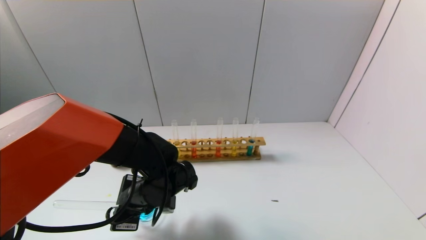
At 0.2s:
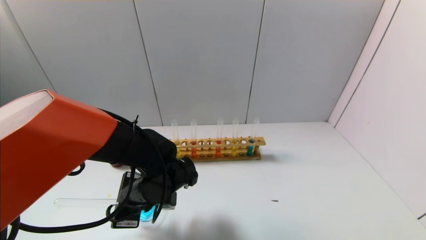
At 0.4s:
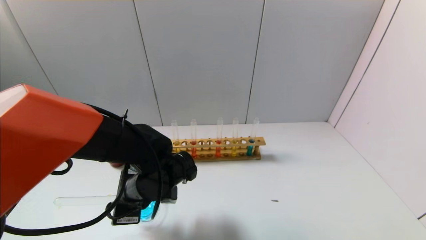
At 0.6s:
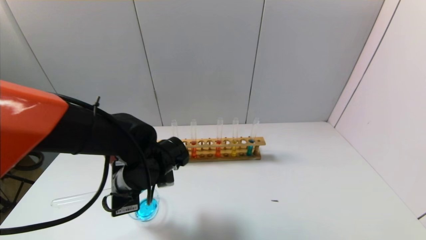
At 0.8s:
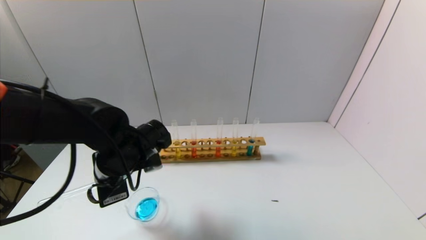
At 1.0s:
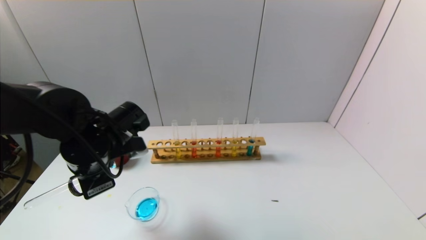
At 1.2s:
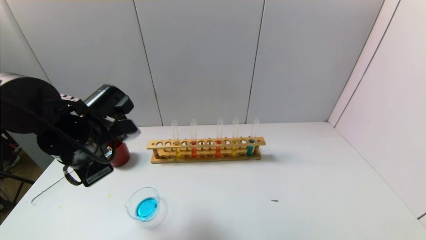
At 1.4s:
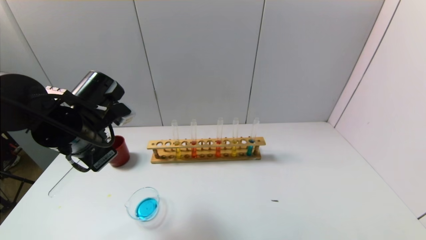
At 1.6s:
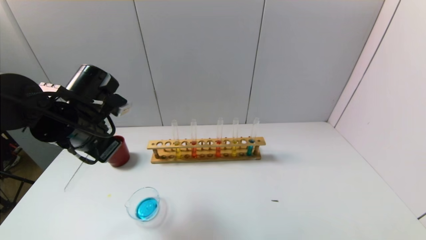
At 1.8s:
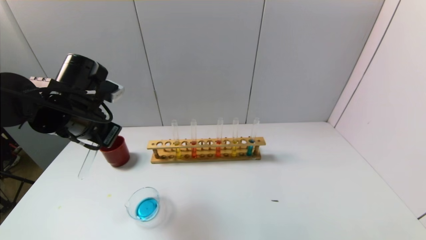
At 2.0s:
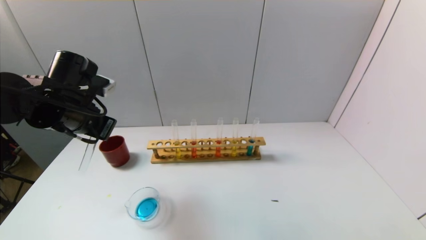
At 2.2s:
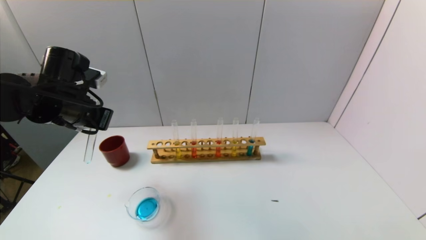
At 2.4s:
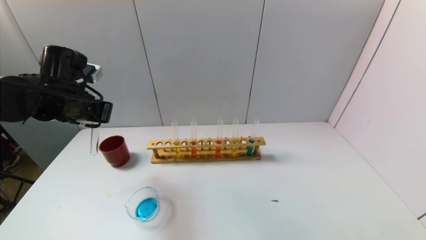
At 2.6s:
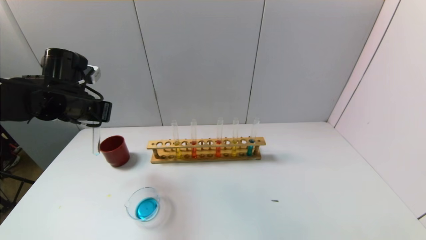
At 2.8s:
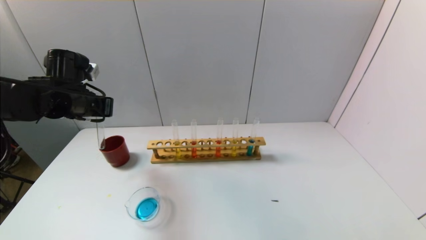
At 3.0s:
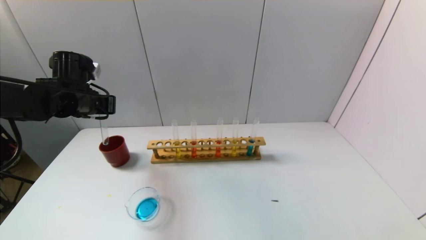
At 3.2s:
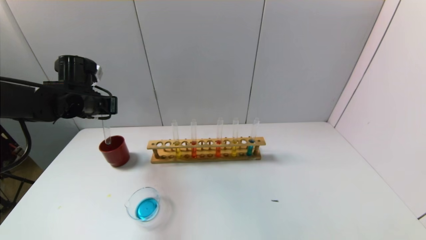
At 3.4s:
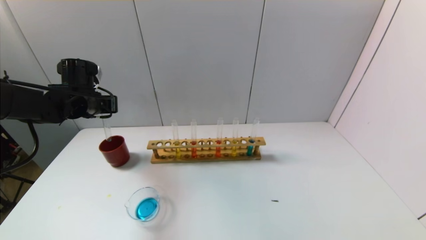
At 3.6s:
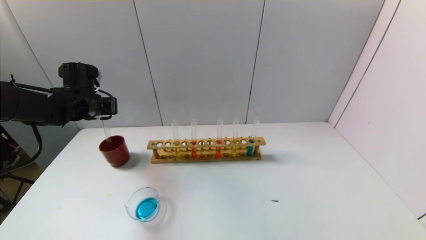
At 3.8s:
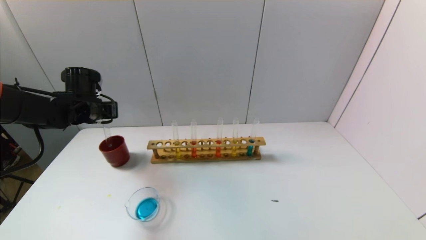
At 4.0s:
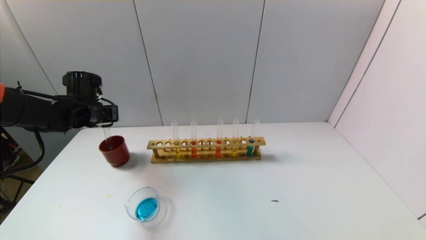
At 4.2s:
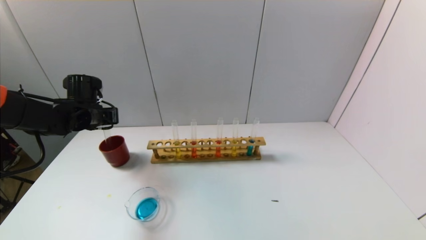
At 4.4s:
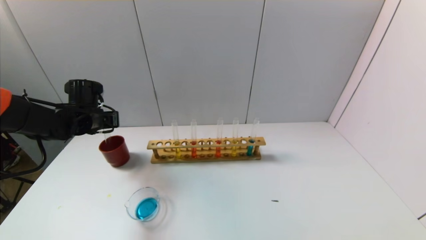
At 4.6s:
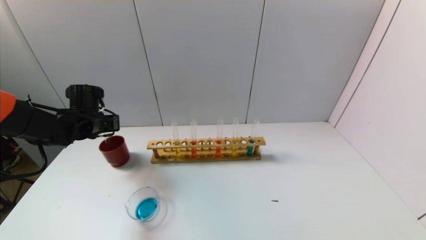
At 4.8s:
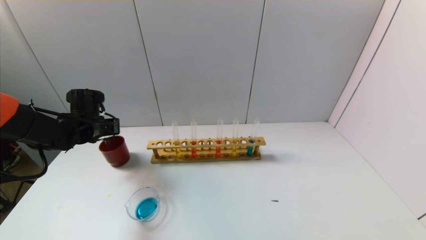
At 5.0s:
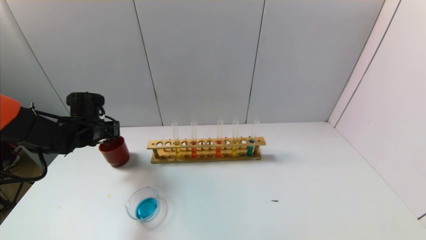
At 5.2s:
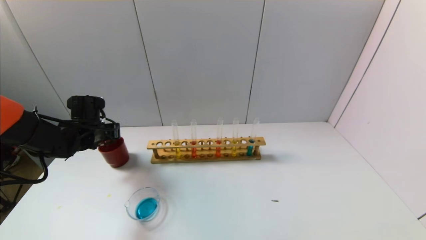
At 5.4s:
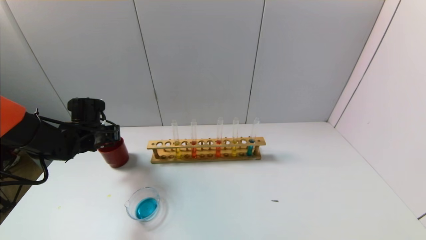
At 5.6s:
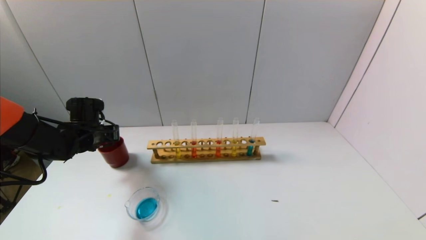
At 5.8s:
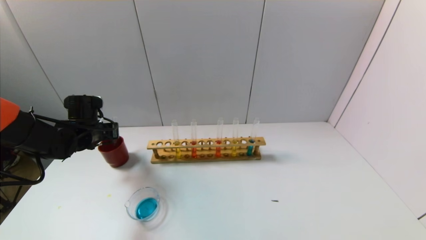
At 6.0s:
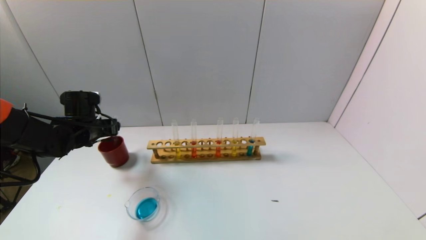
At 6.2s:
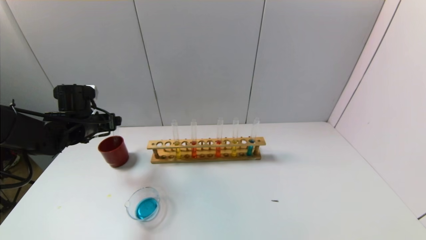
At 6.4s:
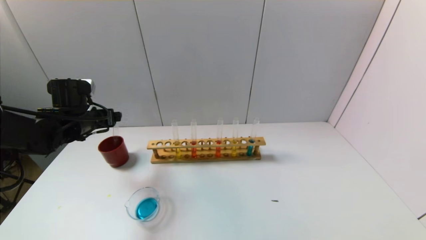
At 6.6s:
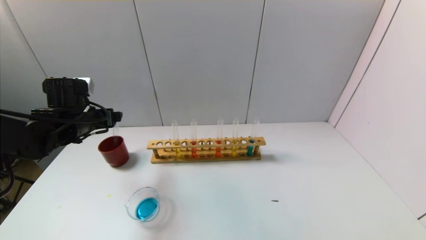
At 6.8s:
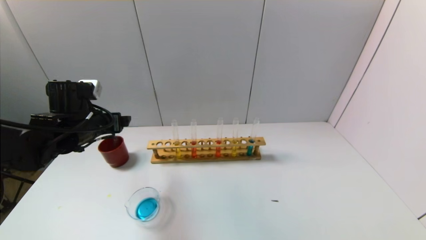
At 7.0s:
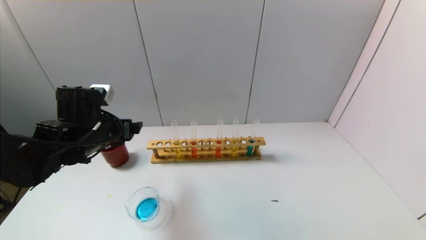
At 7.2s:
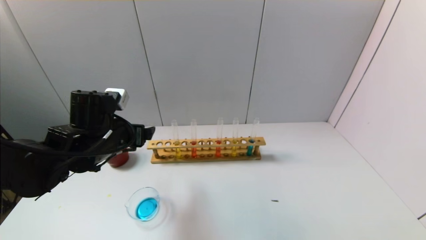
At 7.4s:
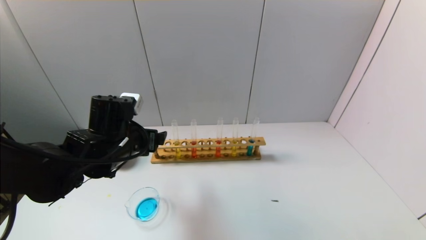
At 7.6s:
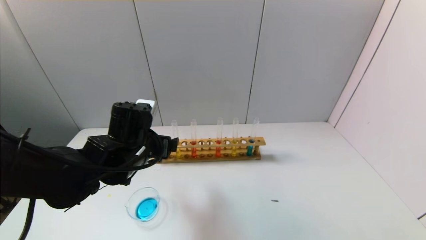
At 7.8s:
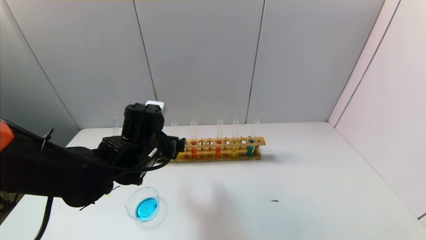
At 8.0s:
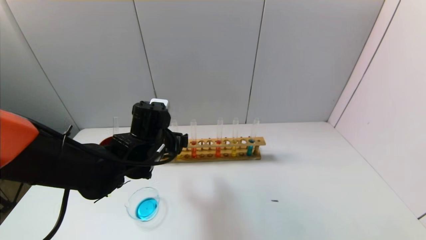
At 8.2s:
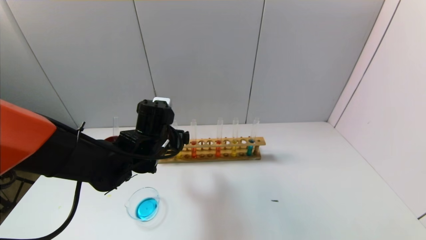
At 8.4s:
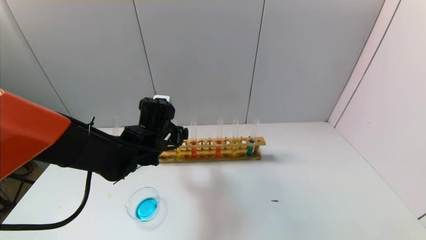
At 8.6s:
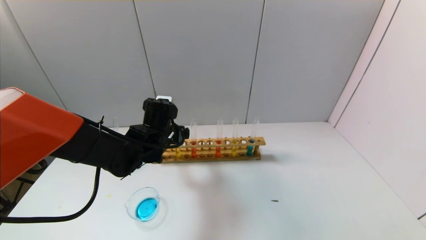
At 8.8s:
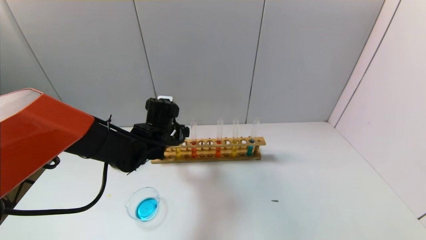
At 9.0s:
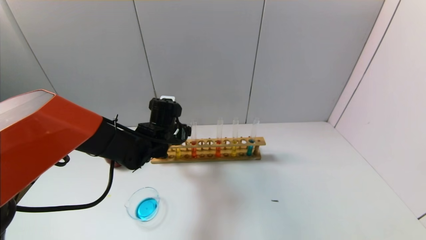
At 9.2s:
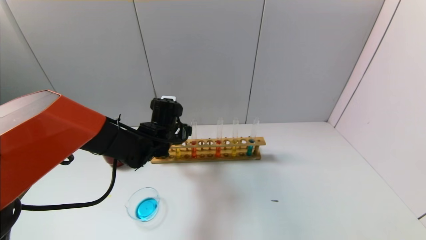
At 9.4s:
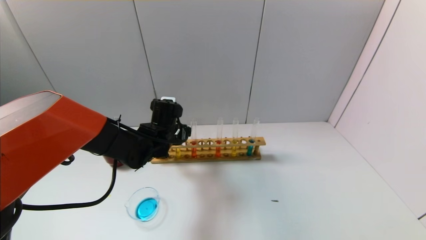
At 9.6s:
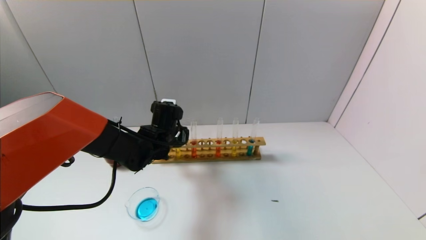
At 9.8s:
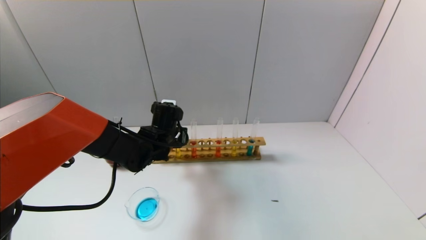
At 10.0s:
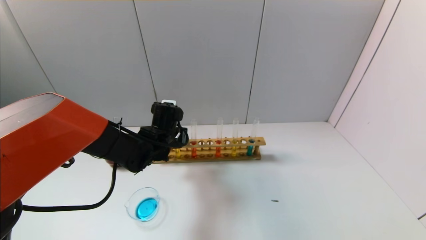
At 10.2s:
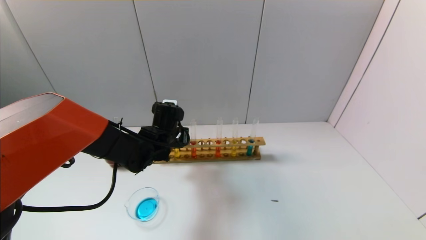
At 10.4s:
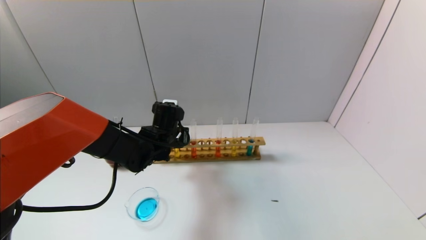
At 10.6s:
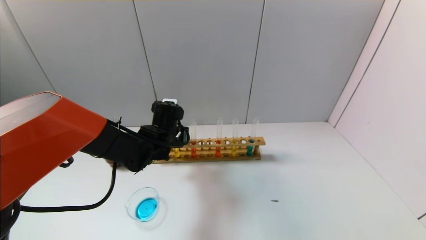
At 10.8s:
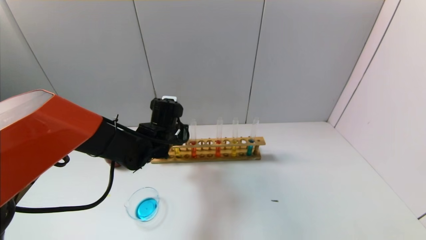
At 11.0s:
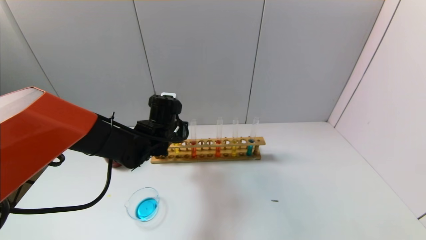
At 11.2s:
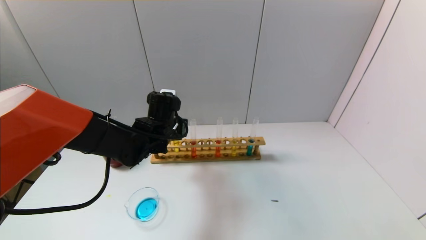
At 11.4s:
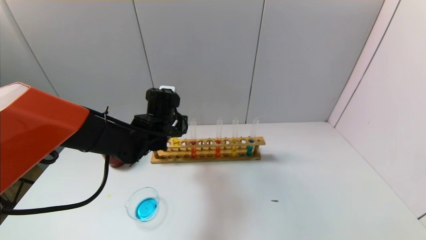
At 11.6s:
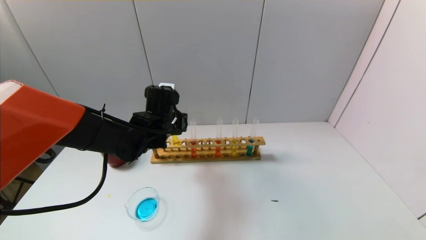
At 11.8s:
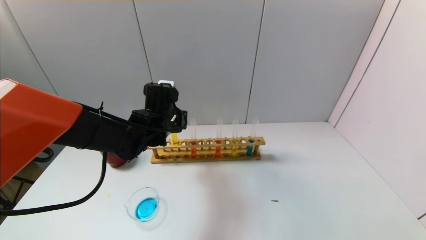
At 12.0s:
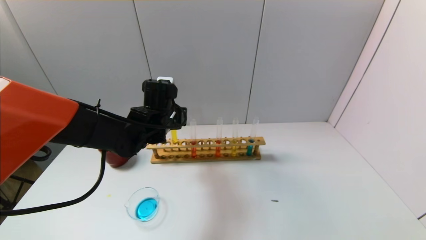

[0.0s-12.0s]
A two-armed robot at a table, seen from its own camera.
Task of the whole recording: pick up the test tube with yellow pigment and the test tube with blue pigment by grippers and pour them into the beaker.
Step, 0.0s to 6.0s: Place the test tube into the brown cup with the left gripper.
Step, 6.2s to 10.4s: Grasp the yellow reagent with the left gripper.
0.0s to 1.6s: The left gripper heads upward and to the left, covering roughly 15 cm.
1.6s to 3.0s: The left gripper shifts approximately 10 cm forward and to the left.
3.0s to 4.4s: The left gripper goes some 5 cm downward.
4.4s to 6.0s: The left gripper opens.
6.0s to 7.6s: The left gripper heads to the right and backward, covering about 20 cm.
7.6s to 9.0s: The left gripper is displaced forward by some 10 cm.
9.0s to 10.4s: The left gripper closes.
10.4s to 12.0s: The left gripper travels upward by approximately 5 cm.

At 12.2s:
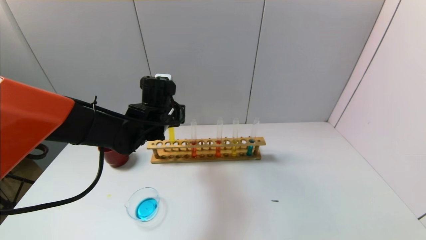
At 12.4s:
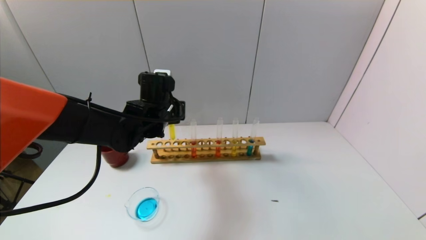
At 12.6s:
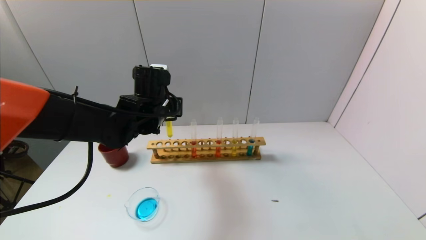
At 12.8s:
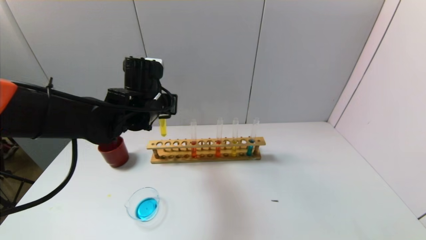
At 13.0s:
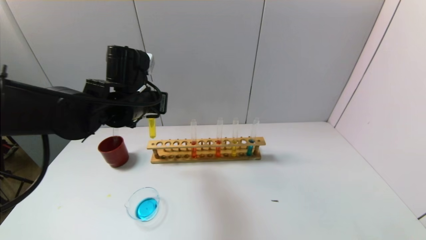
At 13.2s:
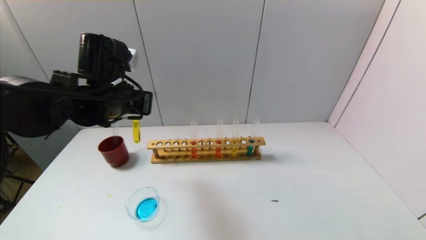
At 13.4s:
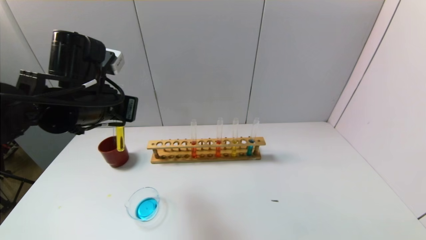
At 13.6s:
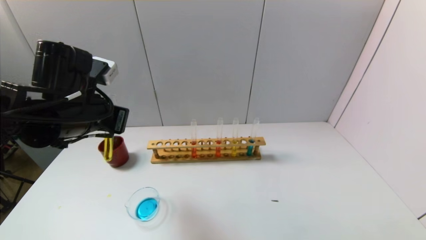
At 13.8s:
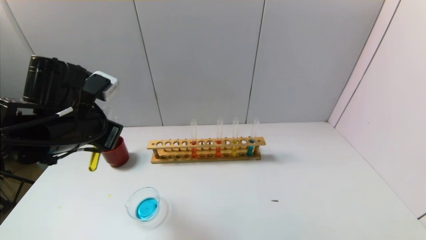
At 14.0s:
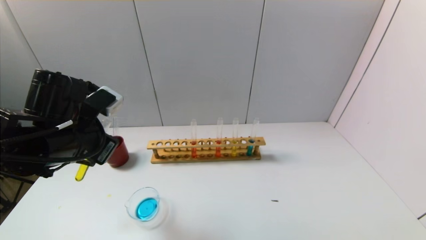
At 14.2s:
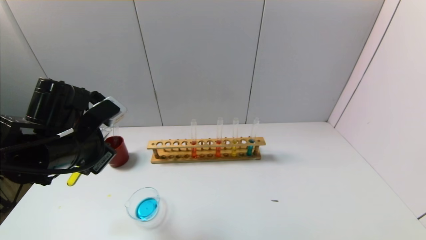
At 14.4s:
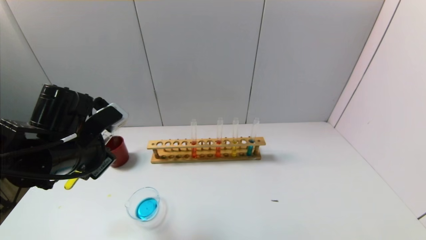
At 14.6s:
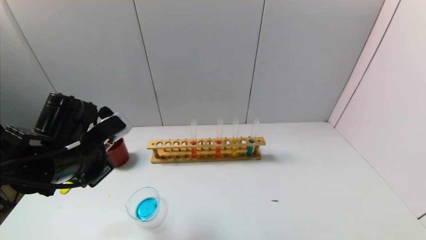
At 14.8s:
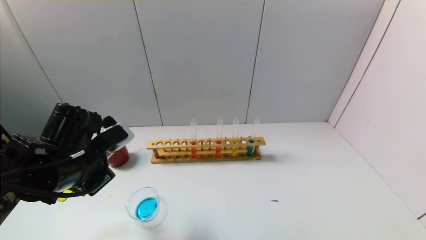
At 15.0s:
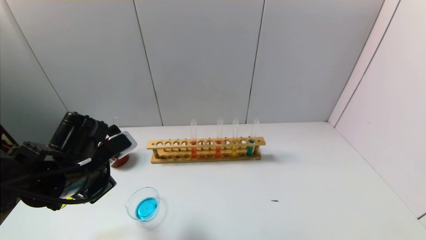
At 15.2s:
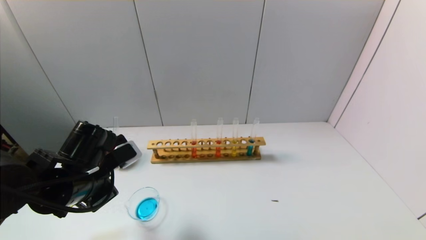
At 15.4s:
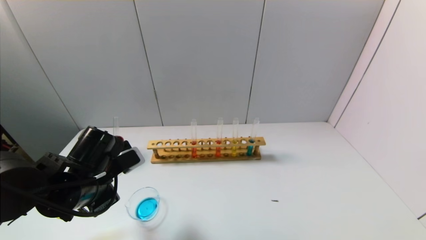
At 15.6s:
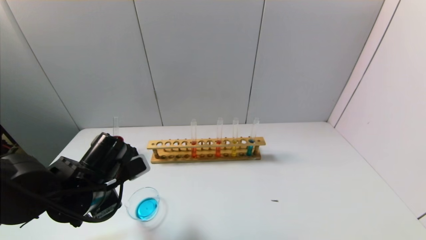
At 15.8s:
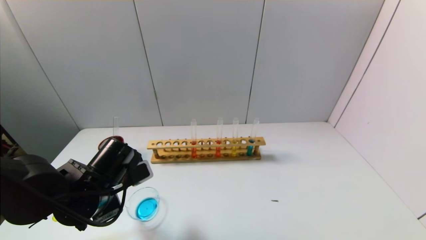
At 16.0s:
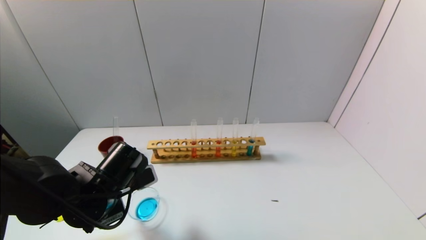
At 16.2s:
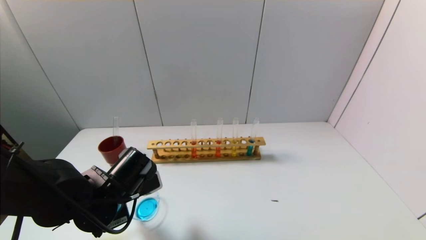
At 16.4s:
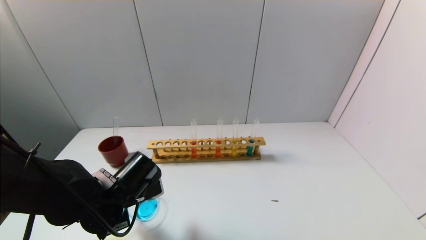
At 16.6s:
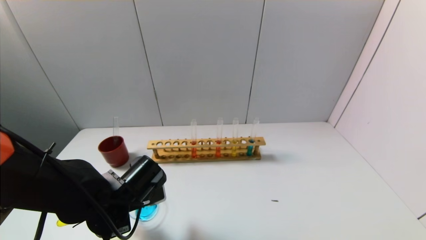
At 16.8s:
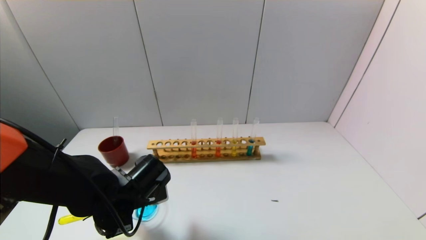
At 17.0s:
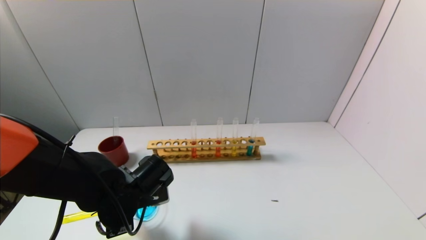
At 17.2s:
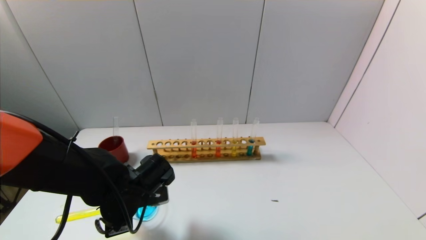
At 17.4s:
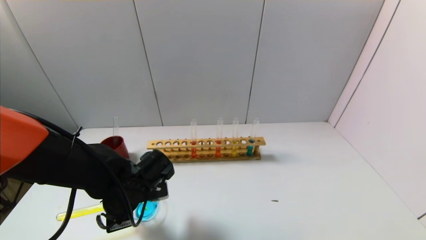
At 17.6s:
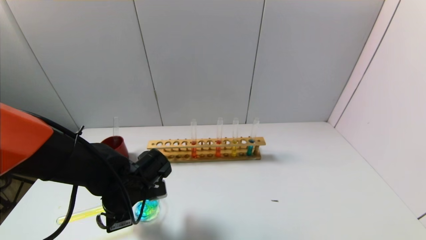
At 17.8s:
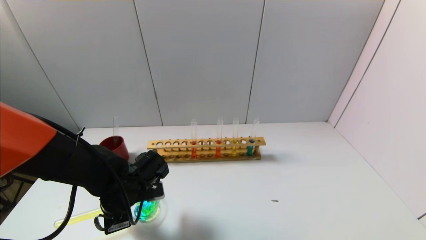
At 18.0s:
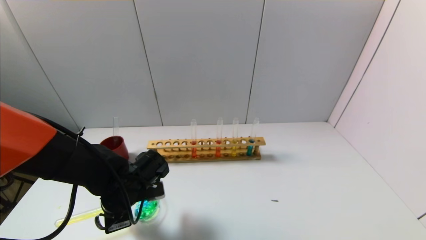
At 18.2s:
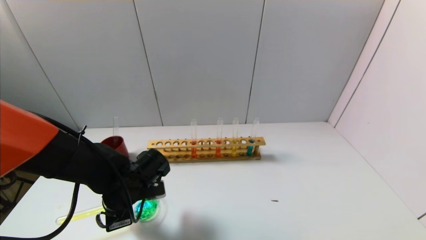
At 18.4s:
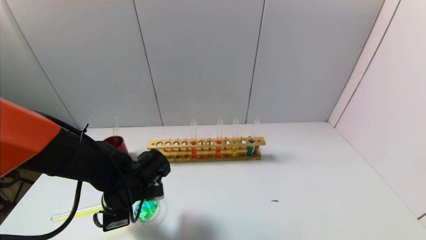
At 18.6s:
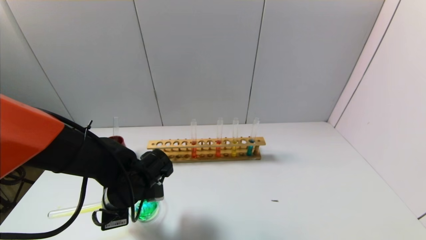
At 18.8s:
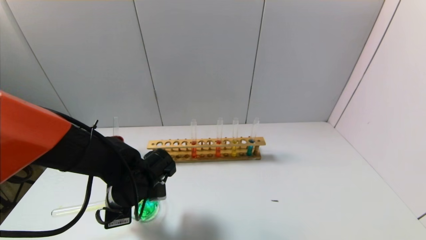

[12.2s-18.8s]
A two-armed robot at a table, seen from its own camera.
Task of the whole recording: pick up the test tube with yellow pigment and the test tube with blue pigment by grippers and pour them into the beaker.
12.2s to 13.8s: The left gripper is displaced backward, to the left and upward by approximately 15 cm.
13.8s to 15.4s: The left gripper travels downward by about 10 cm.
15.4s to 17.2s: The left gripper travels to the right by some 5 cm.
17.2s to 18.8s: The grippers move only a little.
